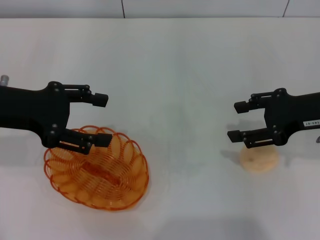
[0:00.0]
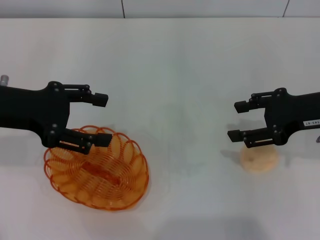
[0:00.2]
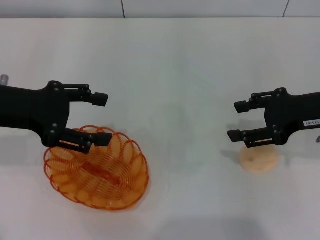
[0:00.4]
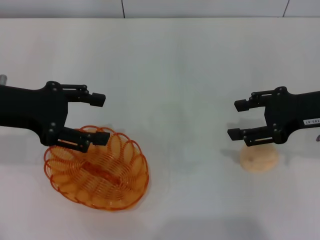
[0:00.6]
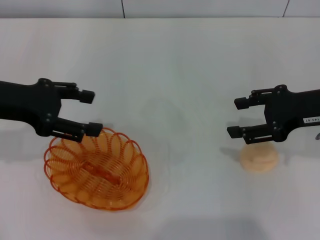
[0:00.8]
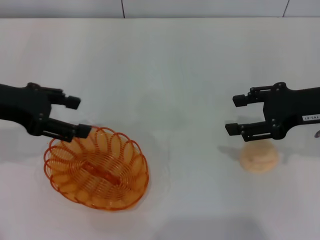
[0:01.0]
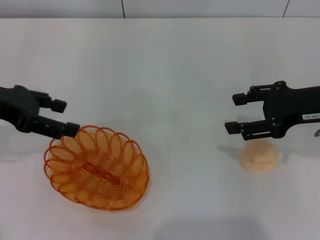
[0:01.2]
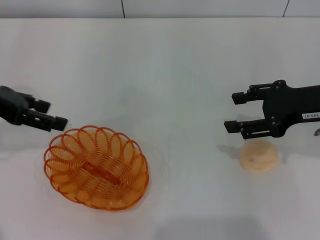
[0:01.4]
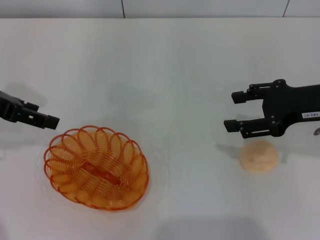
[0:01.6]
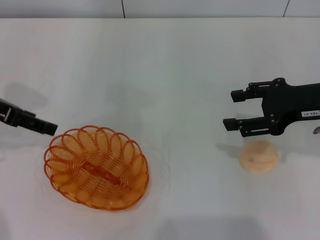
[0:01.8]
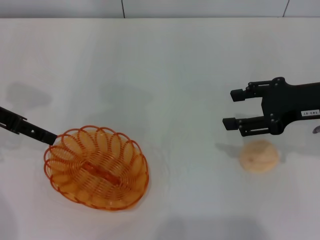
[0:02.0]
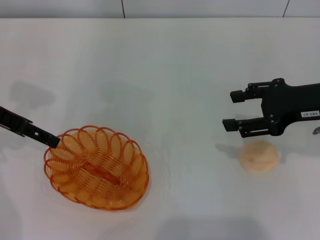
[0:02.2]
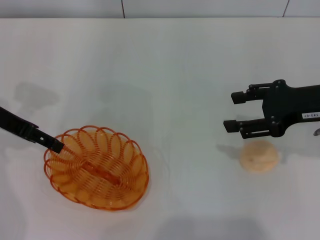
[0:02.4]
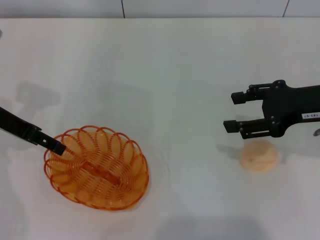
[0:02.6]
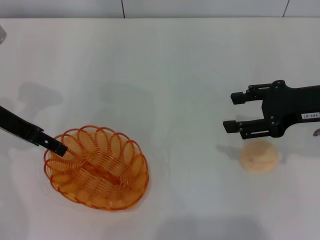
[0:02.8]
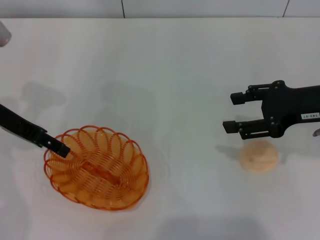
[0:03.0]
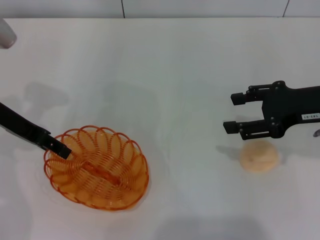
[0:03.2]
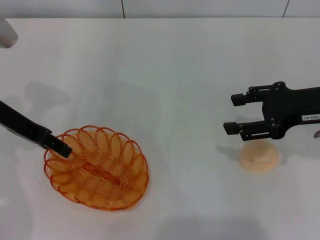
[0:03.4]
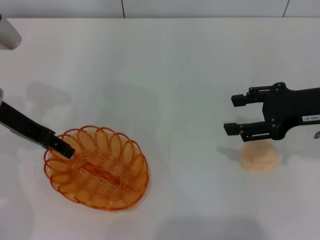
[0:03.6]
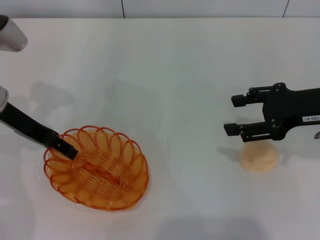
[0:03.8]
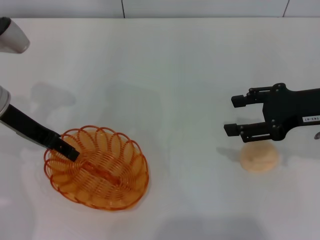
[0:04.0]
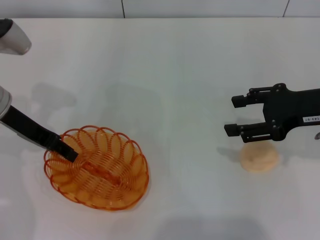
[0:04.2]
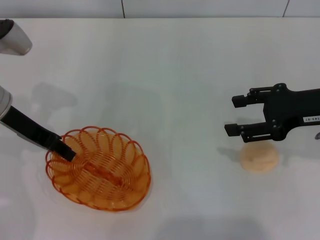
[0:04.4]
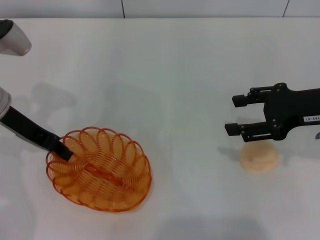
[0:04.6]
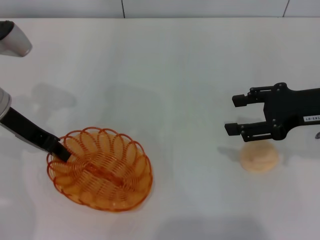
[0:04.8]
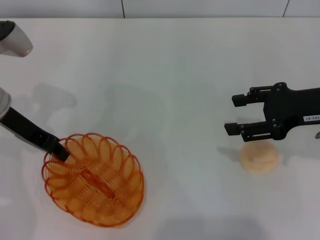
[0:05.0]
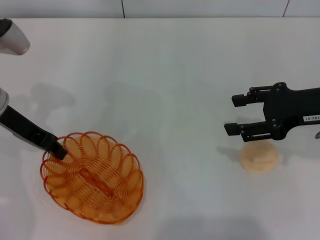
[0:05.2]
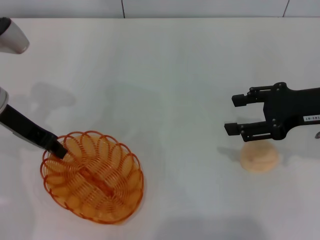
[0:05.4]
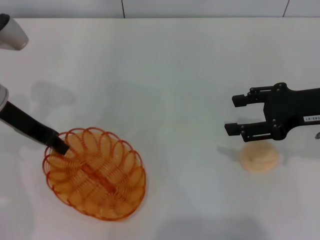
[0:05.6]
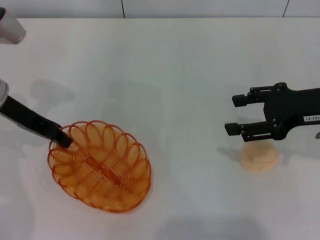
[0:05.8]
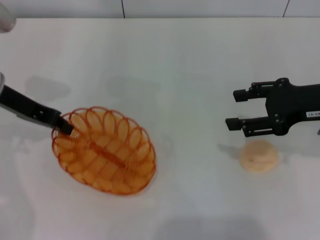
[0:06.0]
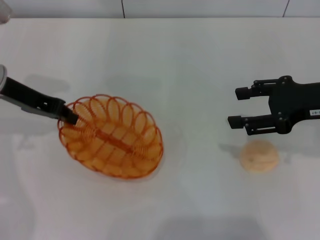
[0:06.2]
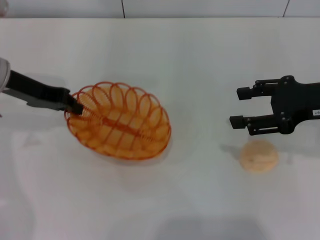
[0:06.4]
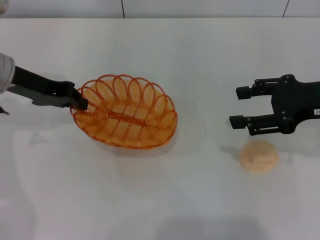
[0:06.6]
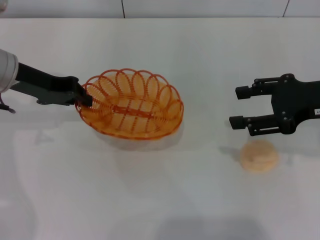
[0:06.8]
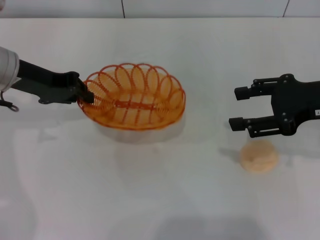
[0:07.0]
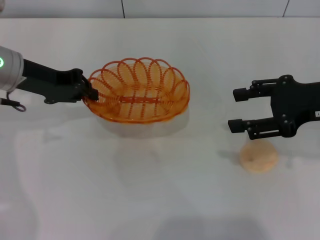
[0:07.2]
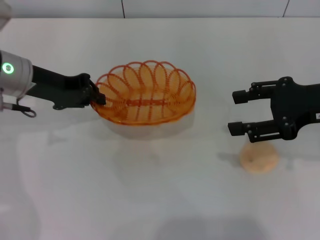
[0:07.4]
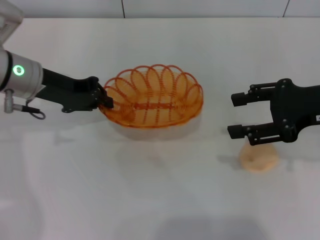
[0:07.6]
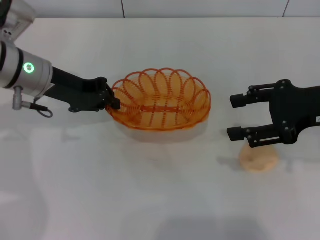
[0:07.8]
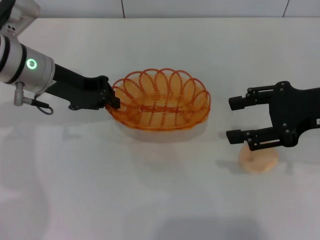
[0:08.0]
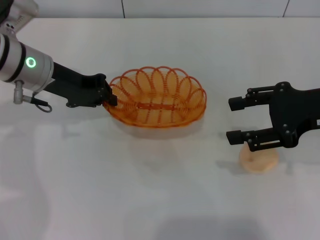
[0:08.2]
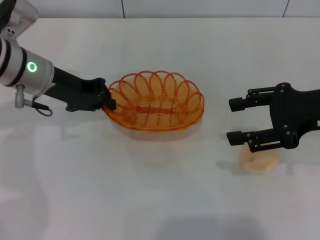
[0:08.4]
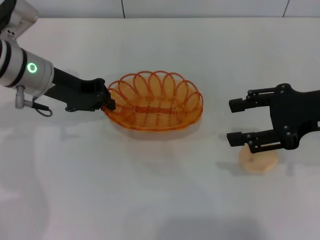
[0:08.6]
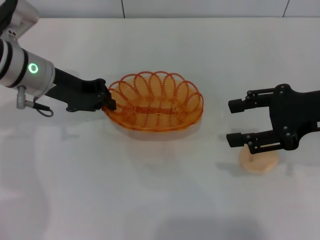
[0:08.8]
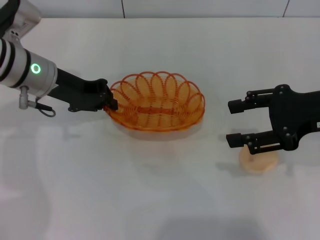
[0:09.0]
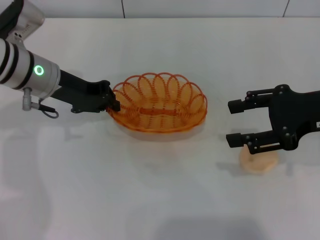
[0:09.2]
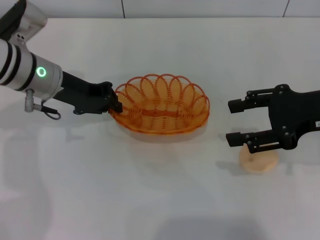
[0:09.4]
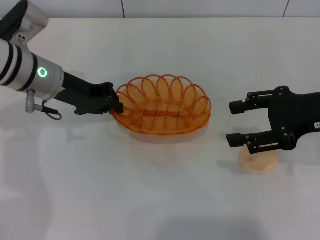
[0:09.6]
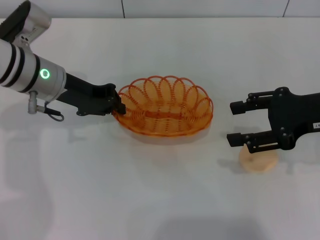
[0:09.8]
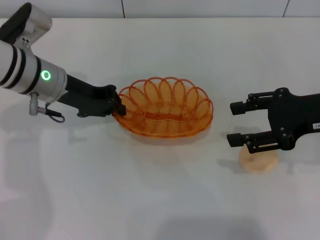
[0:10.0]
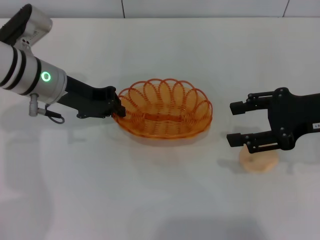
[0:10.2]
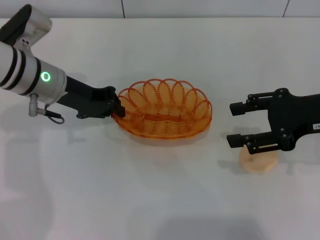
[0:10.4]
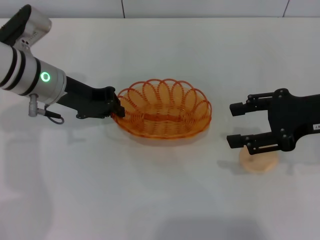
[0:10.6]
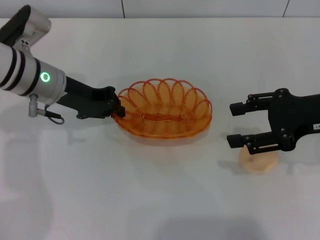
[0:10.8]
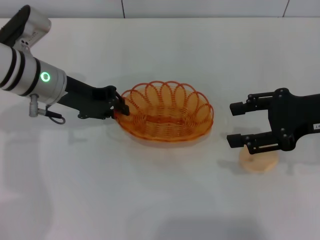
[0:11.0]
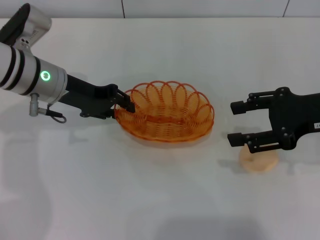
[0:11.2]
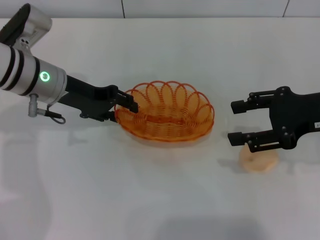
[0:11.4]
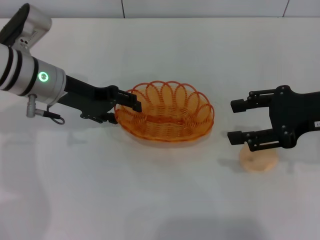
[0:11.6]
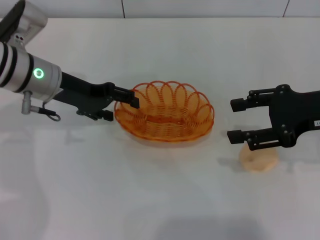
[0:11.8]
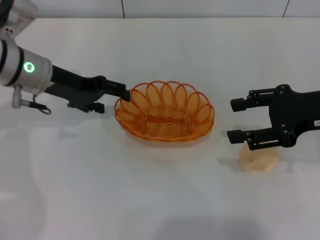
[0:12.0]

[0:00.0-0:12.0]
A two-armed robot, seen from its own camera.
Step, 0:00.0 to 0:06.8: Pick up the basket with the left gripper.
0:00.0 to 0:01.6: The left gripper changes place by some 5 cm.
0:01.6 to 0:03.0: The left gripper ends up roughly 5 cm from where it was.
0:03.0 to 0:04.4: The left gripper closes.
0:04.4 to 0:06.0: The left gripper closes.
0:07.6 to 0:10.4: The grippers stay close to where they were, moving slightly.
0:10.4 to 0:12.0: The left gripper opens its fingers.

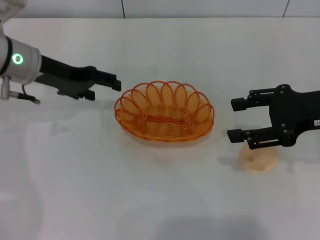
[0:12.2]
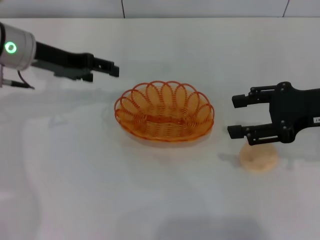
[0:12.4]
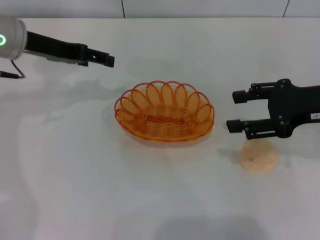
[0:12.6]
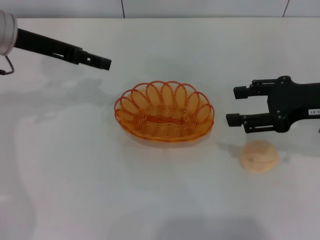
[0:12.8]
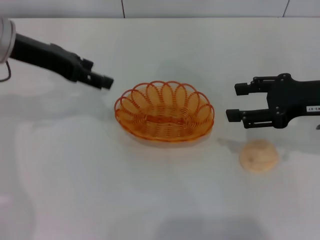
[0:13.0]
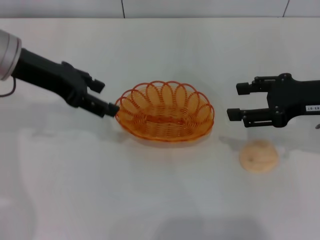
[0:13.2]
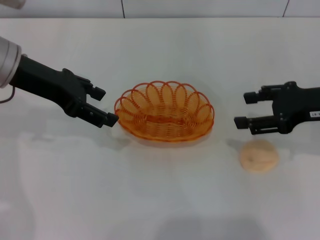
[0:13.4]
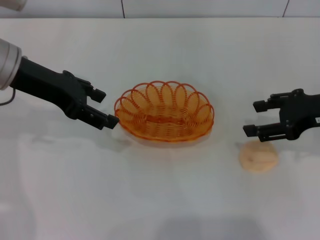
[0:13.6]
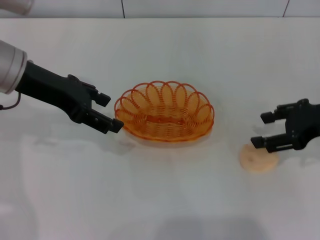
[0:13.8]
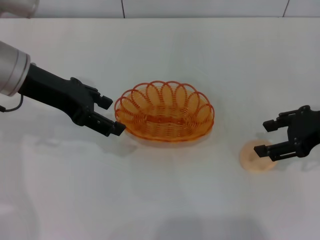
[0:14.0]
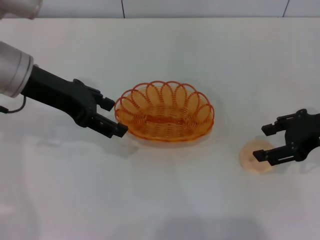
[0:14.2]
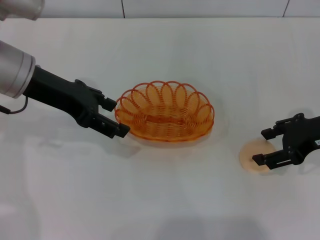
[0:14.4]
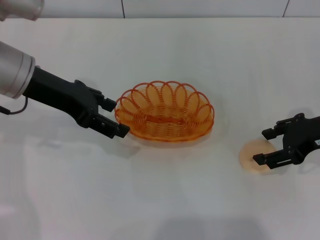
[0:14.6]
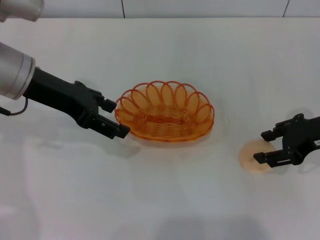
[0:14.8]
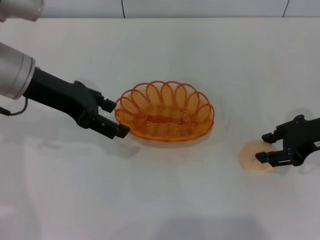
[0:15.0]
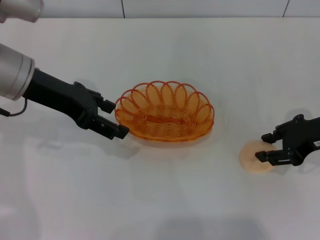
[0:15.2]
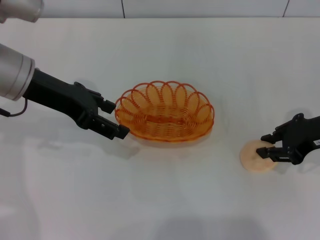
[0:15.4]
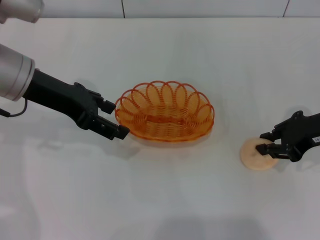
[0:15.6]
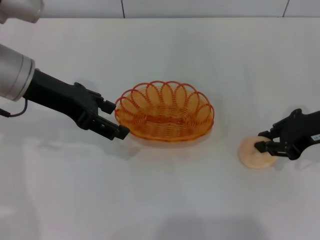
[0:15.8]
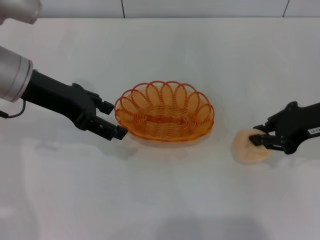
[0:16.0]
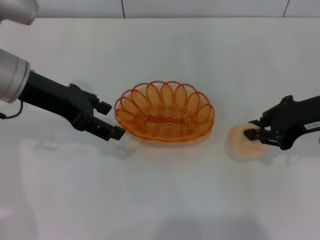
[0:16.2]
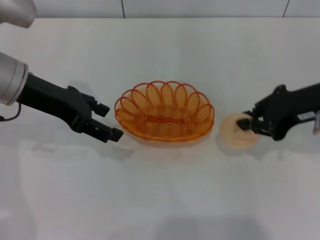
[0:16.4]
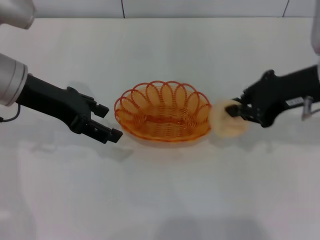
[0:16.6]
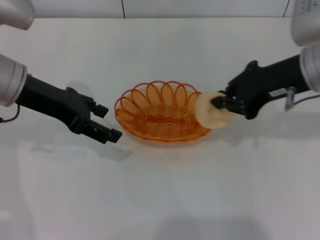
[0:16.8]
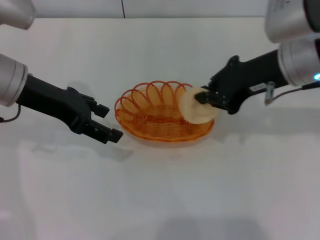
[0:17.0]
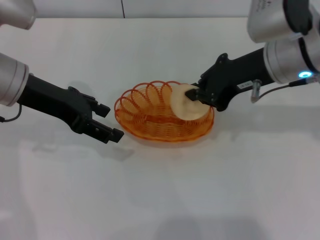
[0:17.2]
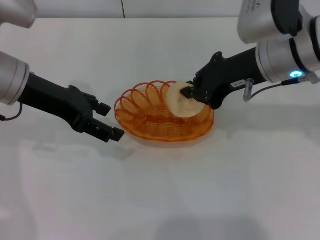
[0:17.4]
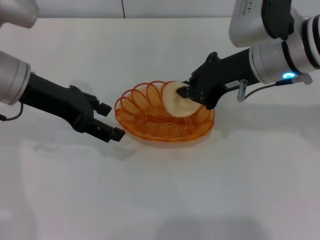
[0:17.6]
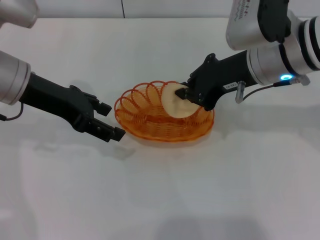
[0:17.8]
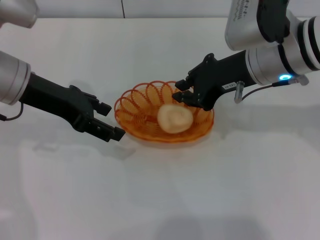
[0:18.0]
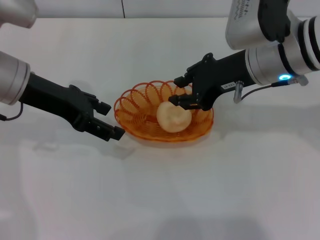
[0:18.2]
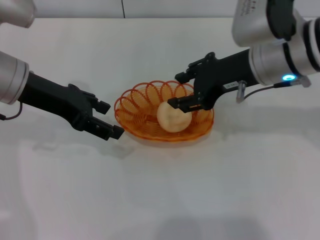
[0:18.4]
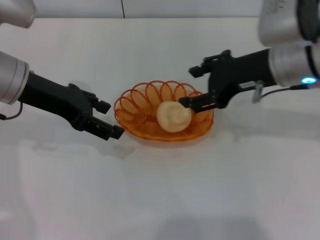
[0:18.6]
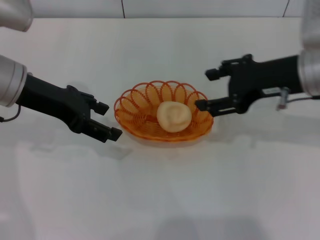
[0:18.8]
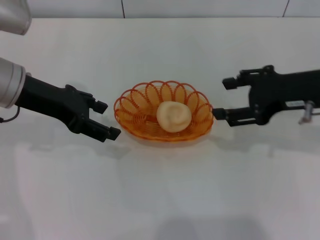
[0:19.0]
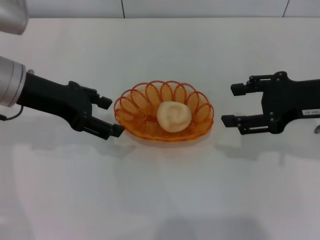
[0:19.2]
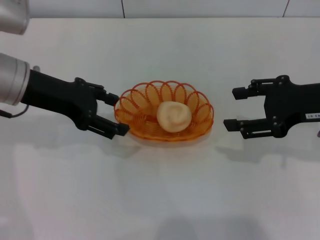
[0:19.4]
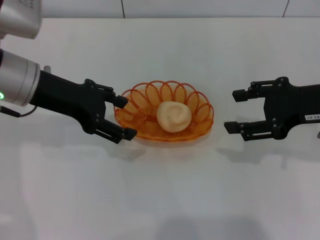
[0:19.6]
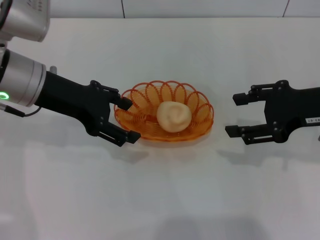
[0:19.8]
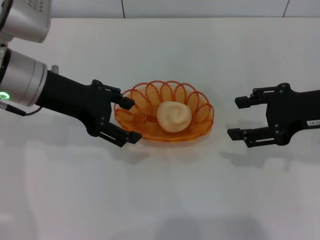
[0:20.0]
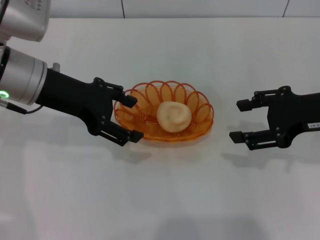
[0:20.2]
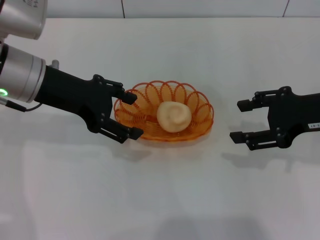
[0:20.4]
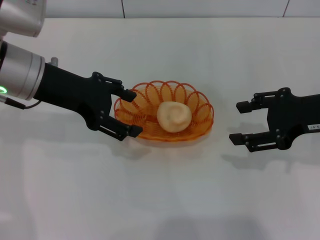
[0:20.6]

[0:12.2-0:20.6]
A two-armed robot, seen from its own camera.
Step, 0:12.6 to 0:16.2: Pick up the egg yolk pastry with the right gripper.
Step, 0:16.4 to 0:18.8: Place the egg yolk pastry into the basket with the right gripper.
0:12.2 to 0:13.6: The left gripper travels upward by roughly 5 cm.
0:13.6 to 0:15.0: The grippers stay close to where they were, moving slightly.
0:15.0 to 0:16.4: The right gripper shifts by some 5 cm, and closes up.
0:16.4 to 0:17.8: The right gripper moves to the left, roughly 10 cm.
0:17.8 to 0:19.2: The right gripper is displaced to the right and backward by roughly 10 cm, and opens up.
0:19.2 to 0:20.6: There are only small adjustments of the grippers.

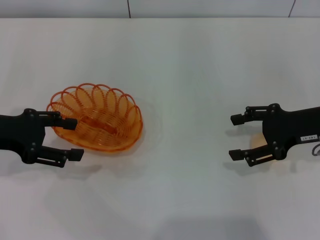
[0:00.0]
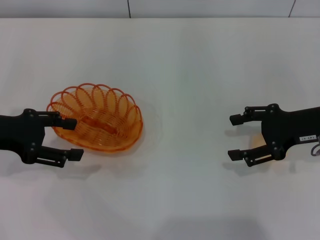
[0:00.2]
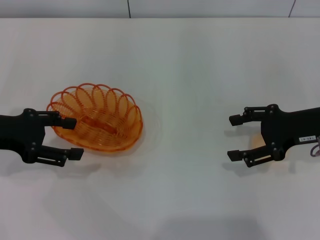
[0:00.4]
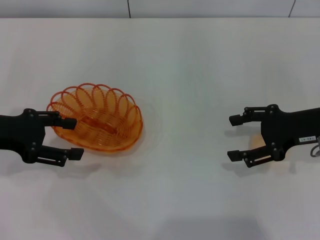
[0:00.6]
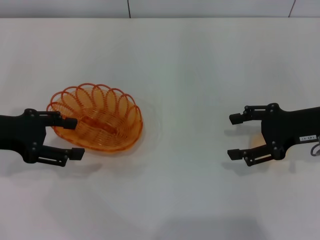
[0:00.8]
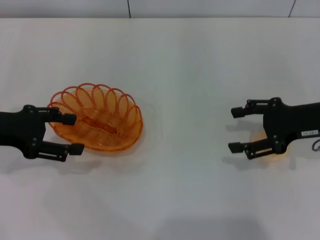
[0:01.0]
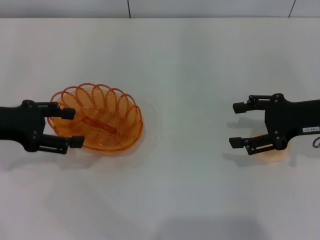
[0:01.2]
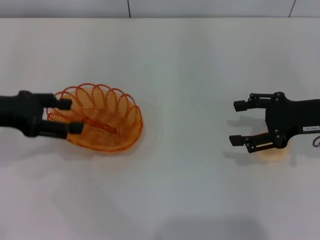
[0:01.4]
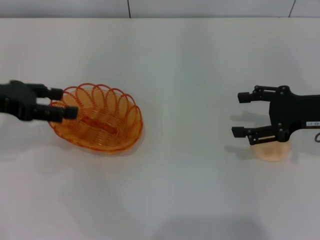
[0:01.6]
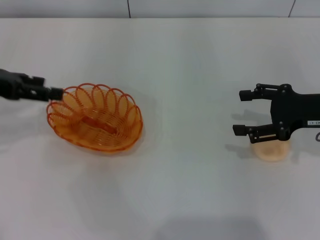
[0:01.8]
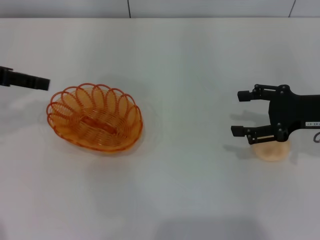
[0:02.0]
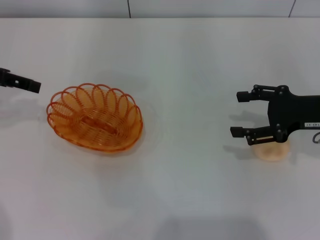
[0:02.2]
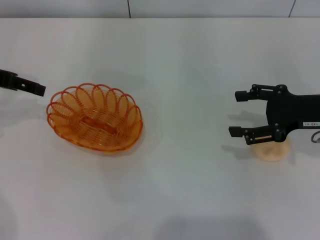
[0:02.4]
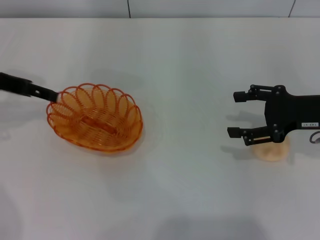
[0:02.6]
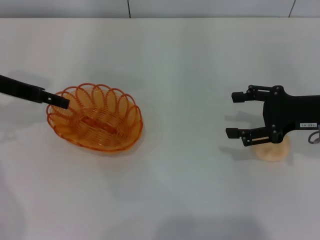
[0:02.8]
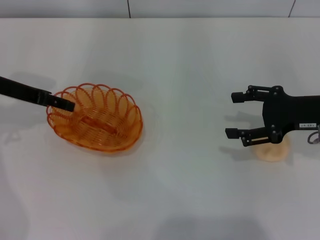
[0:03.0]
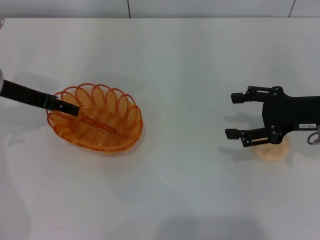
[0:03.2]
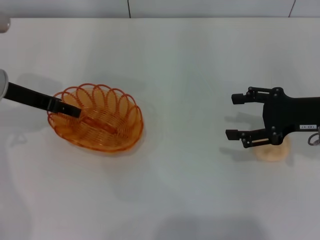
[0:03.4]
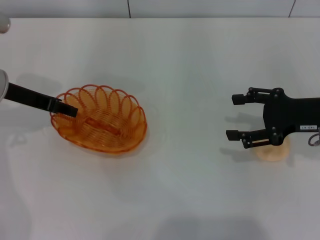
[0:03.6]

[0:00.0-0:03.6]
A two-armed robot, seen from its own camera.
0:00.0 to 0:01.8: The left gripper moves upward, approximately 5 cm.
0:01.8 to 0:03.6: The left gripper goes approximately 5 cm downward.
